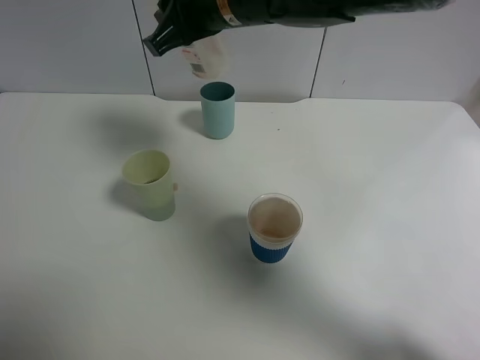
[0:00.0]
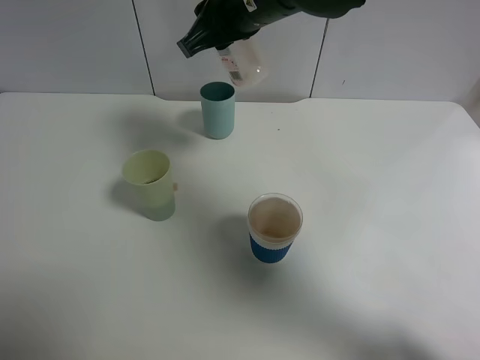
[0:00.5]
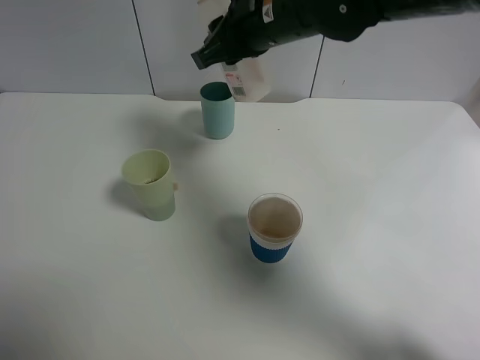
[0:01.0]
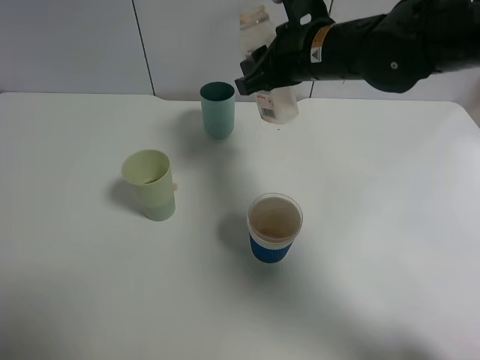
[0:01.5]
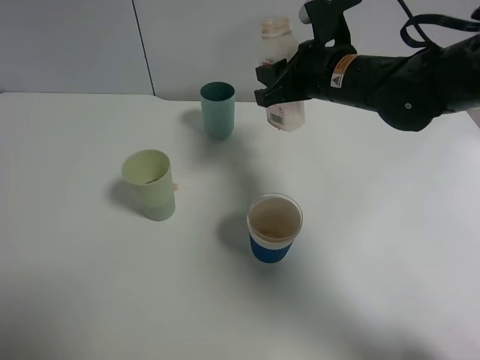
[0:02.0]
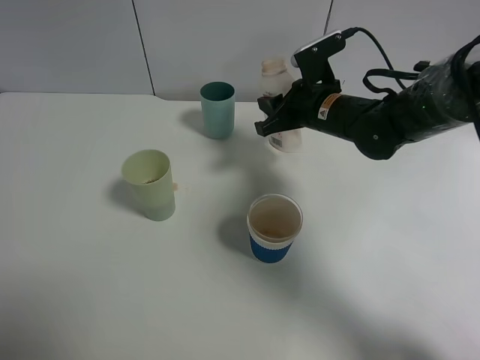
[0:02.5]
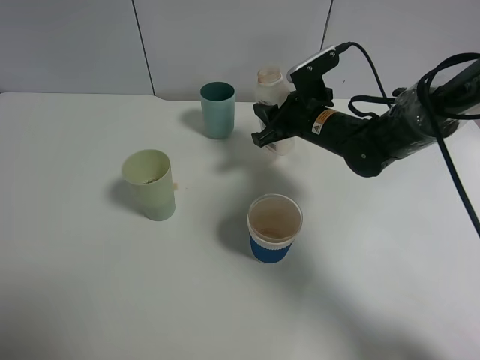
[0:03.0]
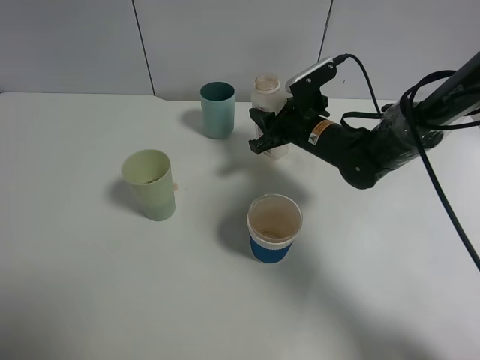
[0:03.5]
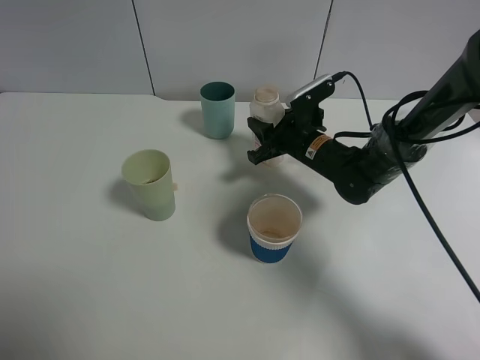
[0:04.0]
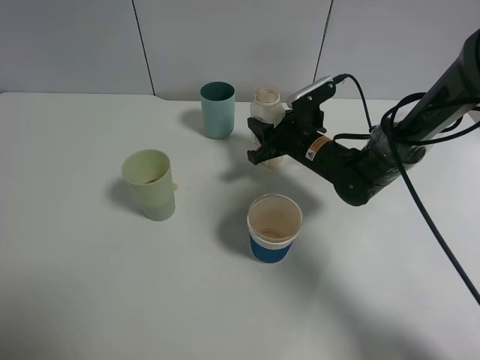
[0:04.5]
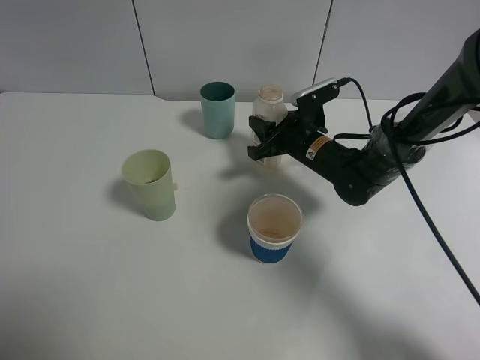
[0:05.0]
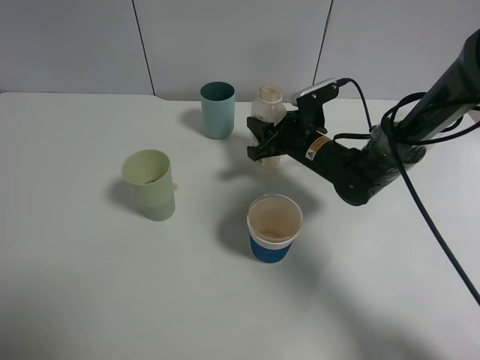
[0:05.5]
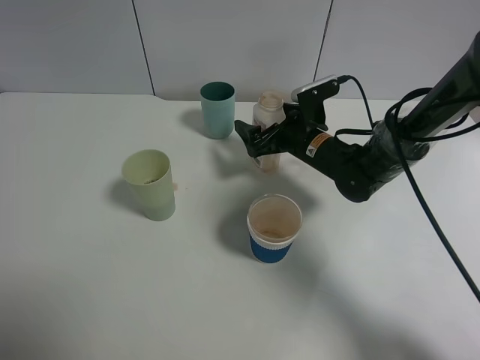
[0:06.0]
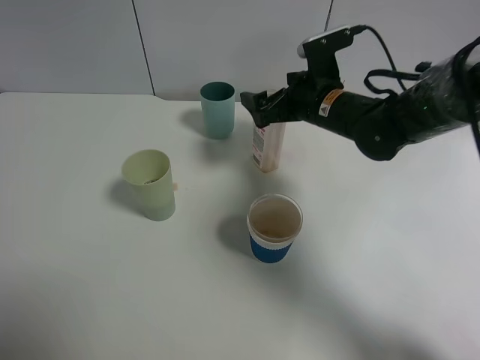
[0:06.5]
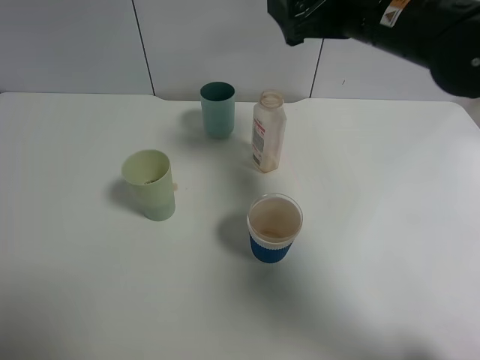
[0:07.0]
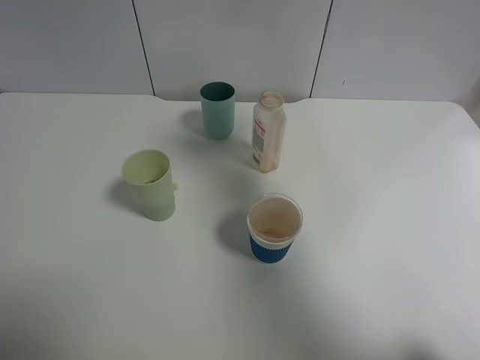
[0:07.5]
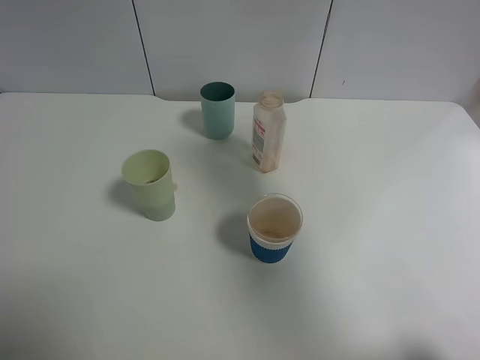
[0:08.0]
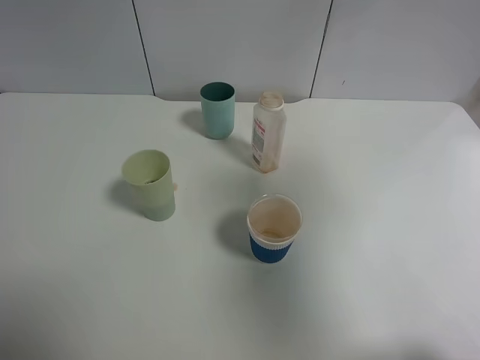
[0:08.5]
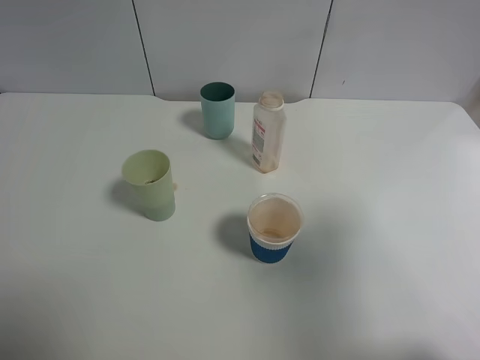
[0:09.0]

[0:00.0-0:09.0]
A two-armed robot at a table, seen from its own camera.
Task of the whole recording: use a gripper to hold the bottle of the drink and pour it into a random cup.
Step, 0:00.0 to 0:05.5: Place the cranberry juice bottle on the table with the right gripper.
0:00.0 to 0:02.0: The right gripper travels to the right and downward by roughly 15 cm.
0:02.0 to 0:04.5: The right gripper moves downward, approximately 15 cm.
0:04.5 to 0:07.0: The right gripper shifts some 20 cm upward, and opens up.
0:07.0 to 0:09.0: The right gripper goes some 30 cm backward and to the right.

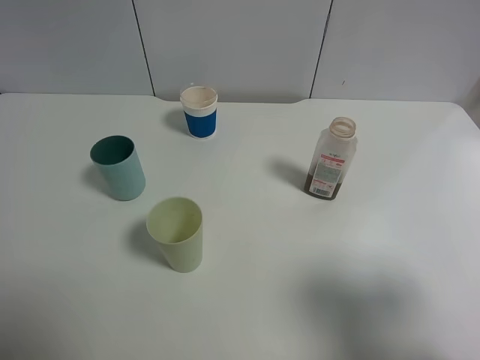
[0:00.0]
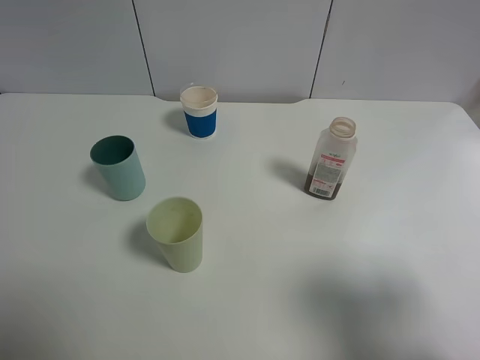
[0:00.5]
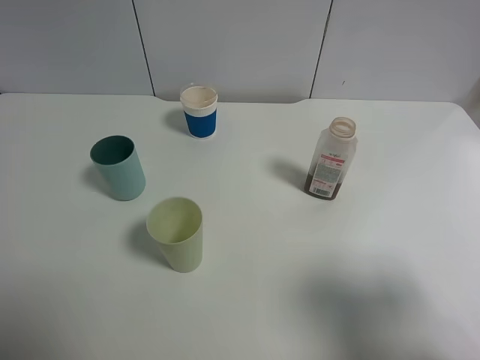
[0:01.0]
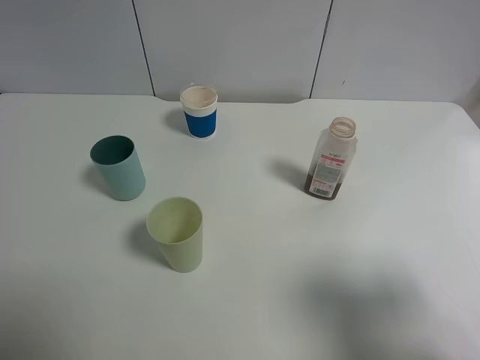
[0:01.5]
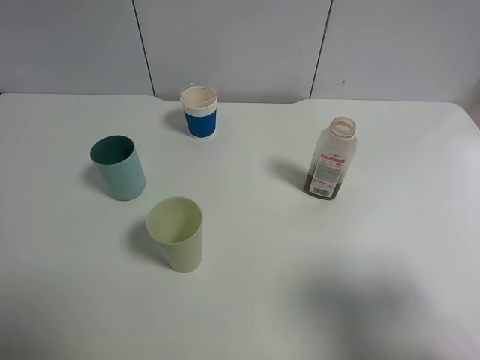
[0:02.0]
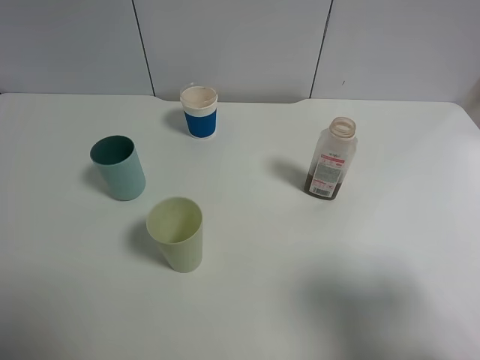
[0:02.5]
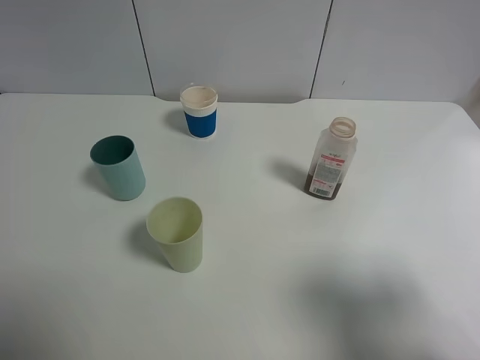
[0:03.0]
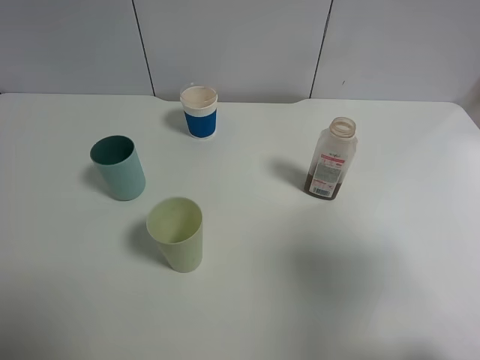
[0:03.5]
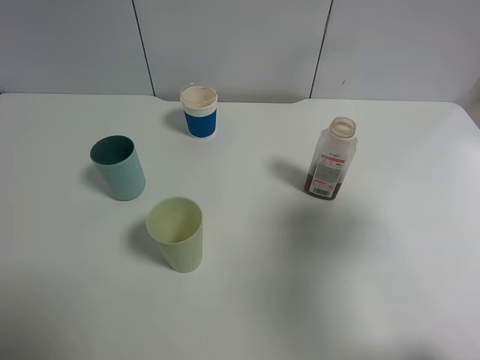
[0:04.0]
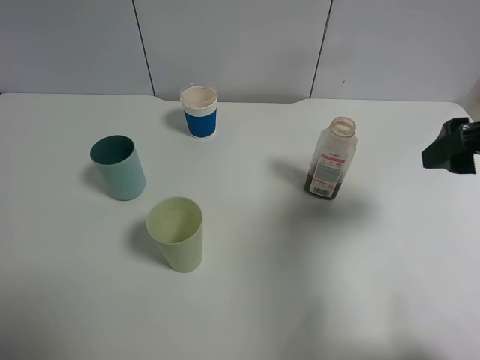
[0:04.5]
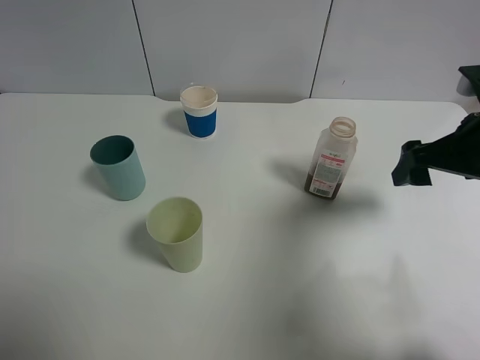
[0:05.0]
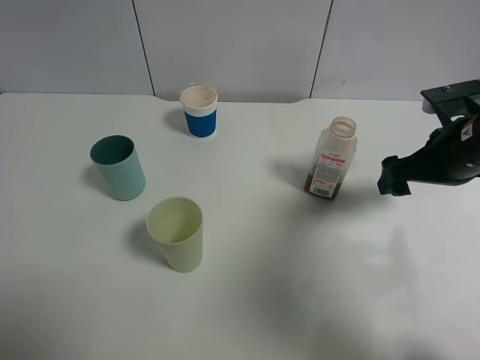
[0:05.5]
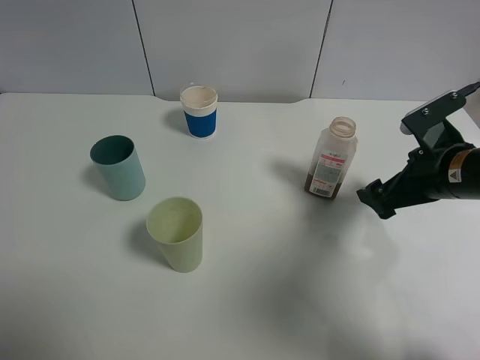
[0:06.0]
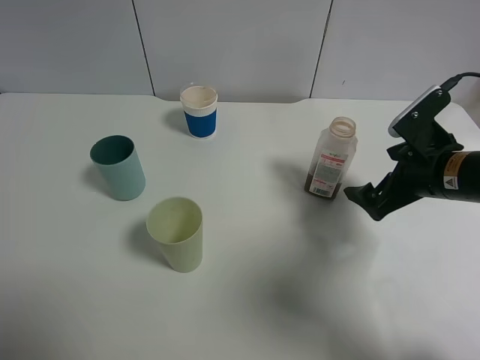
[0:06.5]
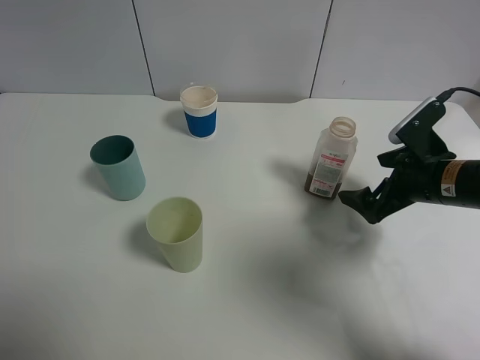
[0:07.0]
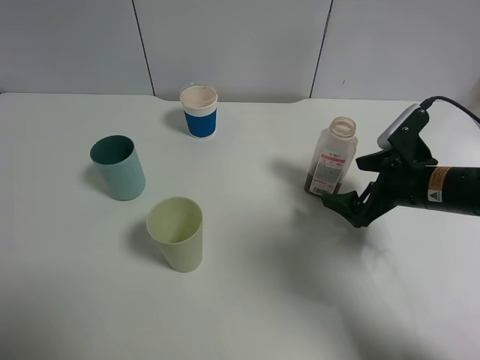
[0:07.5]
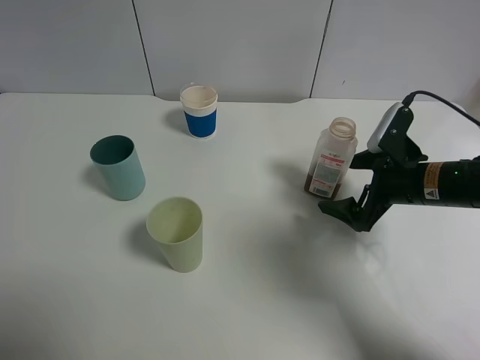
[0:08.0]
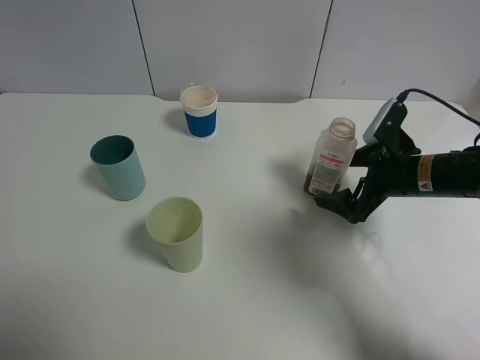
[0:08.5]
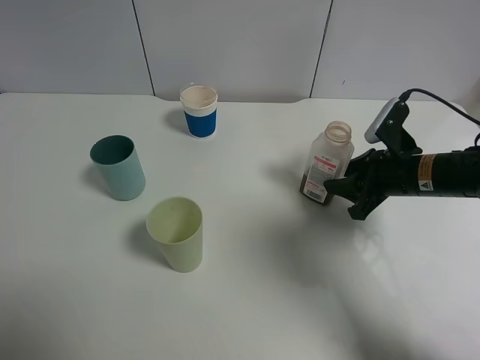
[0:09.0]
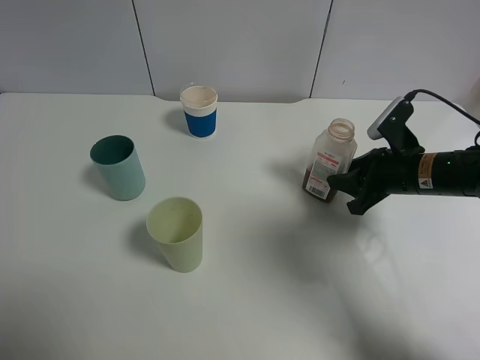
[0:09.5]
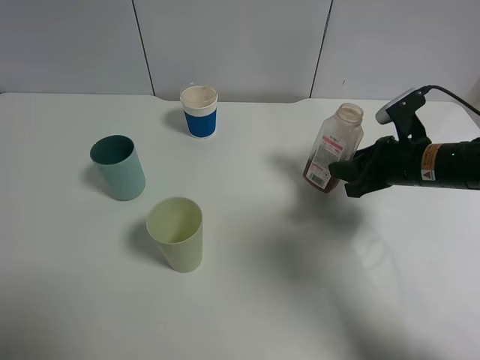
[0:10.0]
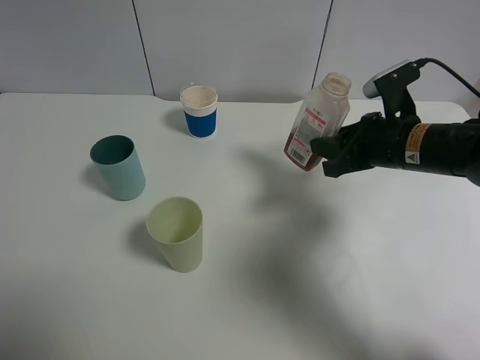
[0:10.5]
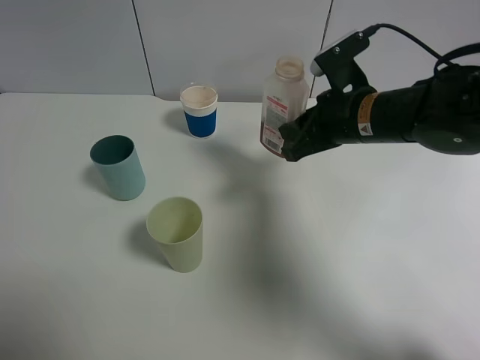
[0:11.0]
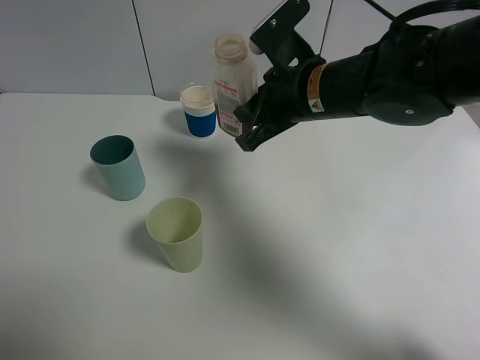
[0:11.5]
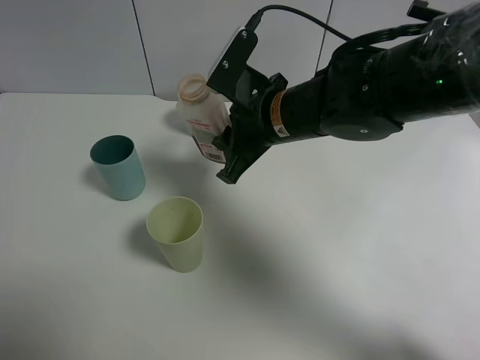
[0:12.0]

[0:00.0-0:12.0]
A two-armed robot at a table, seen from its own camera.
Task of the whole recording: use a gripper to hold the bottle of the drink and pour it into a random cup.
Step, 0:00.0 to 0:09.0: Grasp the cranberry juice bottle with the right gripper.
0:00.0 to 0:02.0: Both grippers stay about where they are.
0:02.0 to 0:04.0: The right gripper is displaced forward by approximately 10 cm.
0:04.0 to 0:06.0: The right gripper shifts approximately 20 cm downward and forward.
0:06.0 to 0:08.0: The right gripper changes place by roughly 5 cm.
0:08.0 to 0:10.0: The right gripper closes its fingers.
0:10.0 to 0:12.0: The right gripper travels to the left by roughly 20 cm.

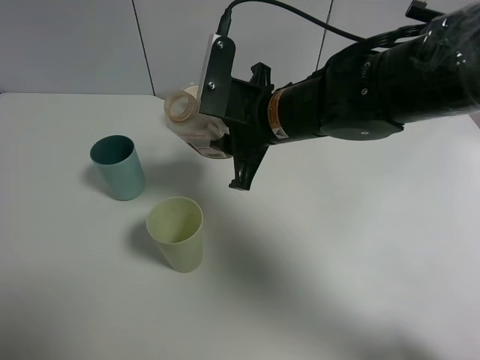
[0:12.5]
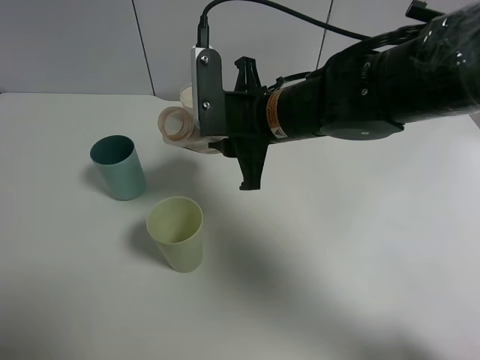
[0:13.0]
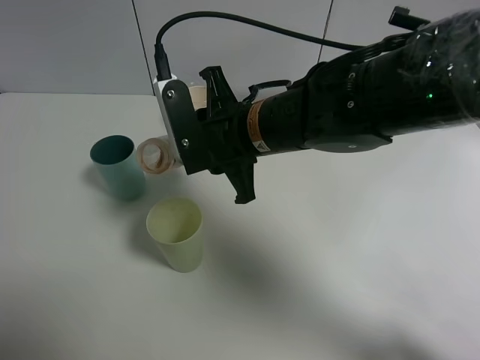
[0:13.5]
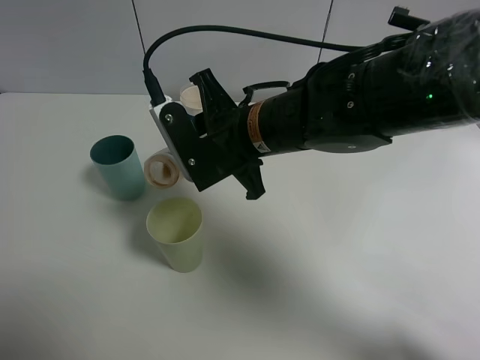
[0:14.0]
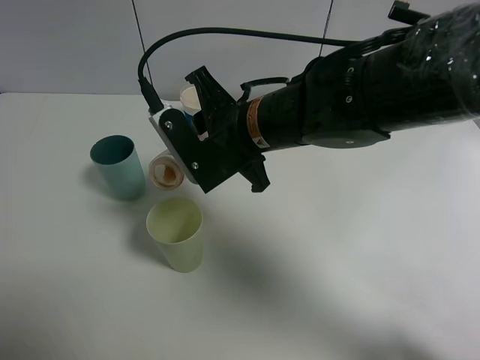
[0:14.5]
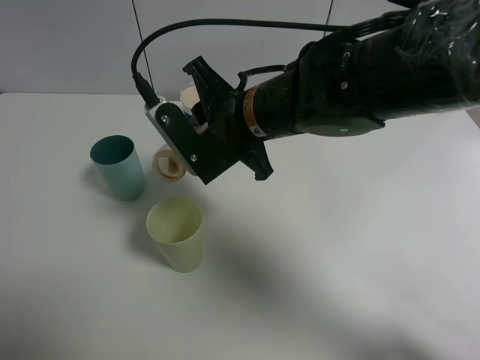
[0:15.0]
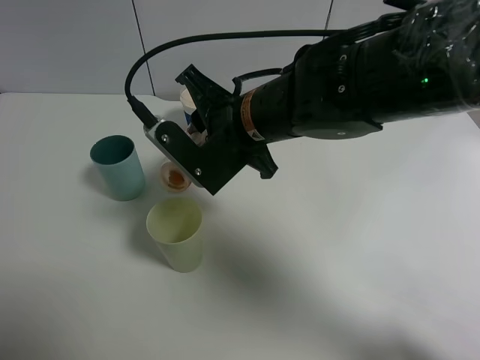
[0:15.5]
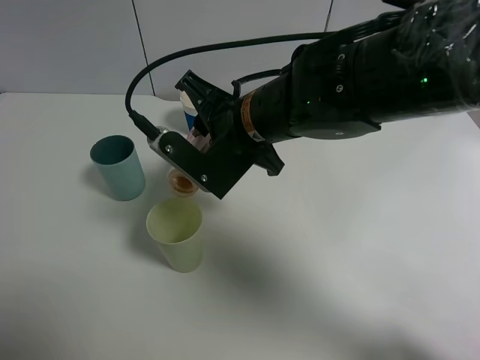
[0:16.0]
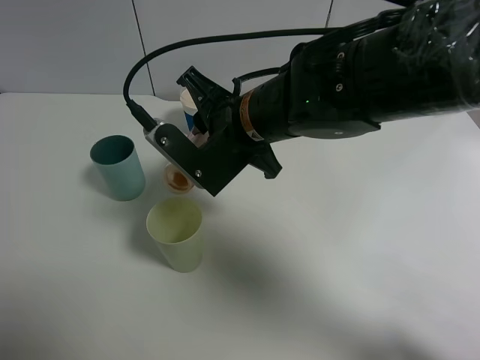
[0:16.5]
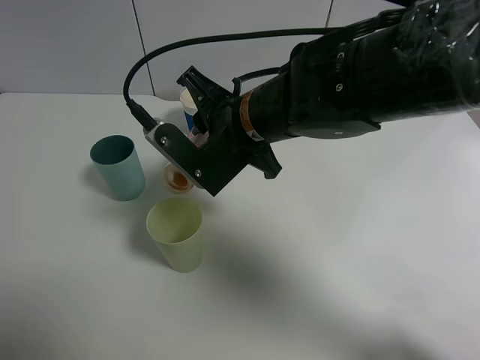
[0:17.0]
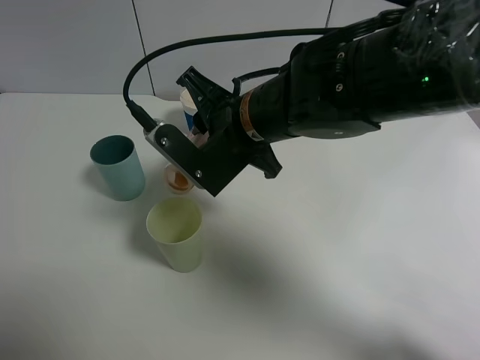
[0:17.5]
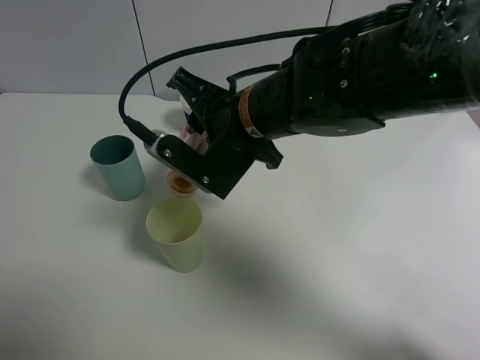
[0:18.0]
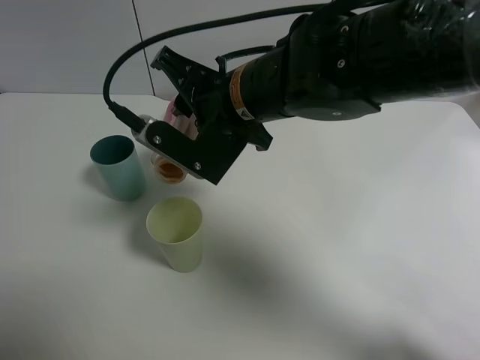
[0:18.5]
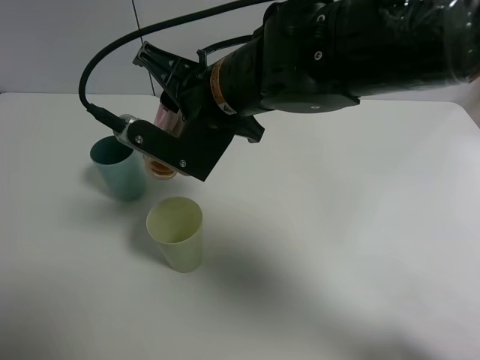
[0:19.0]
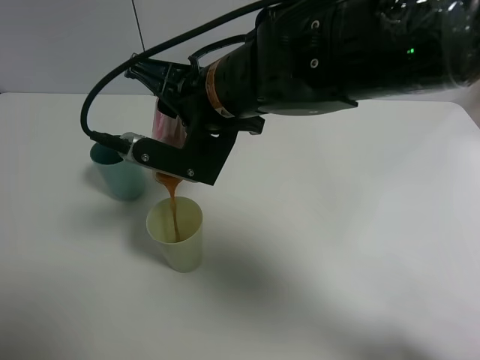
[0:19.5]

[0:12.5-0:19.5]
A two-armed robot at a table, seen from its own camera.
Task of the whole recording: use a gripper to hold the bottle of the drink and pour it into a random cup.
0:14.5 to 0:16.0: The grippers move only a little.
0:16.0 to 0:17.5: The two grippers keep their place.
